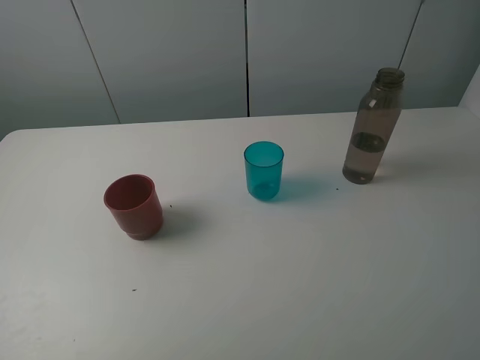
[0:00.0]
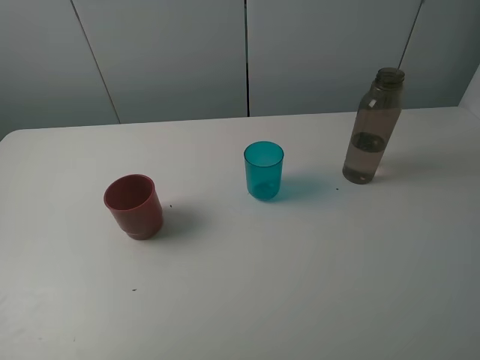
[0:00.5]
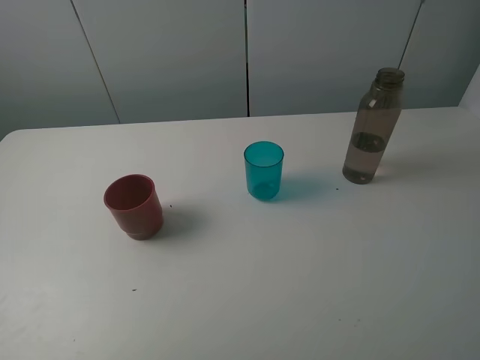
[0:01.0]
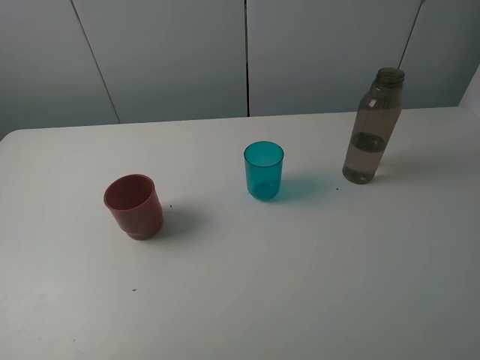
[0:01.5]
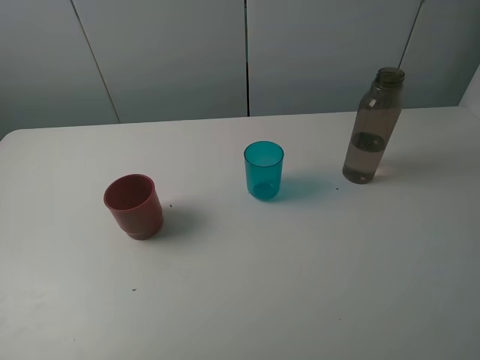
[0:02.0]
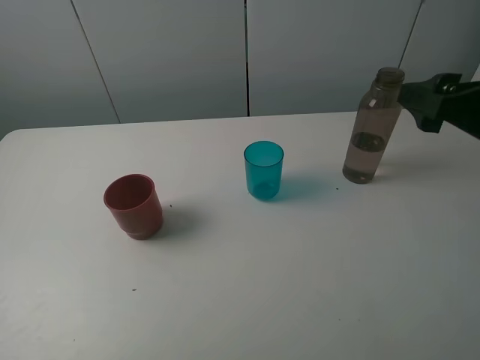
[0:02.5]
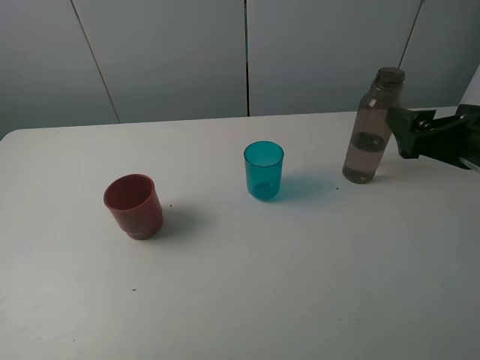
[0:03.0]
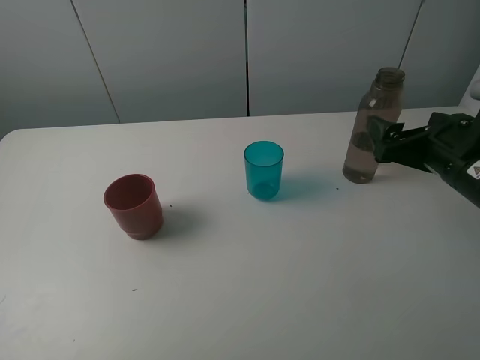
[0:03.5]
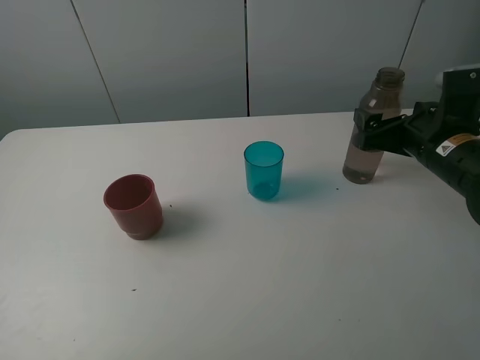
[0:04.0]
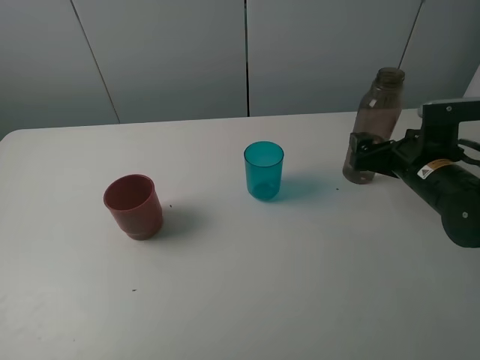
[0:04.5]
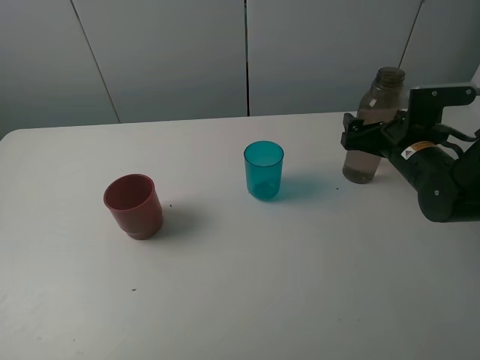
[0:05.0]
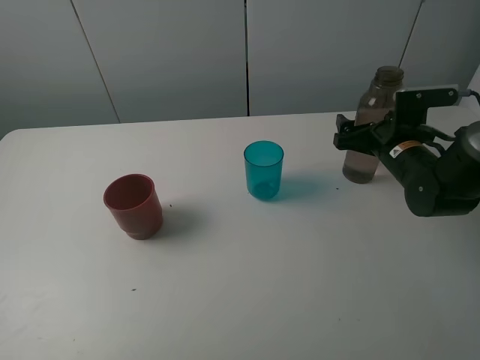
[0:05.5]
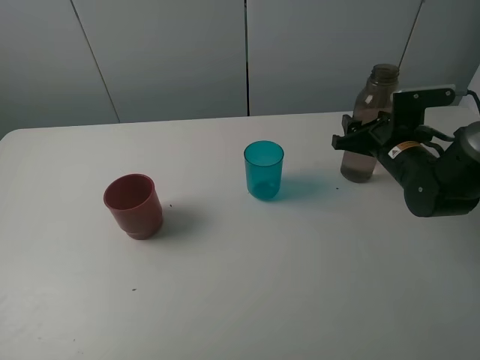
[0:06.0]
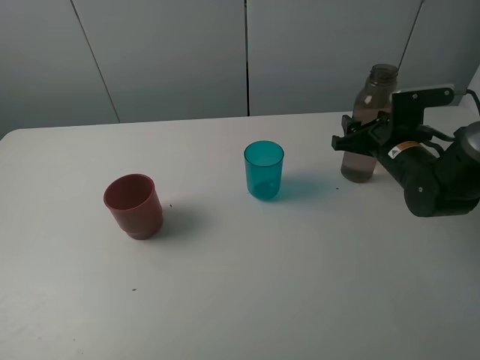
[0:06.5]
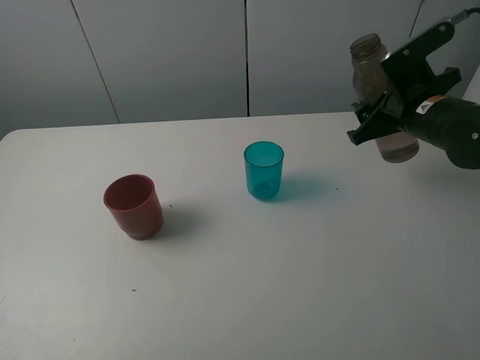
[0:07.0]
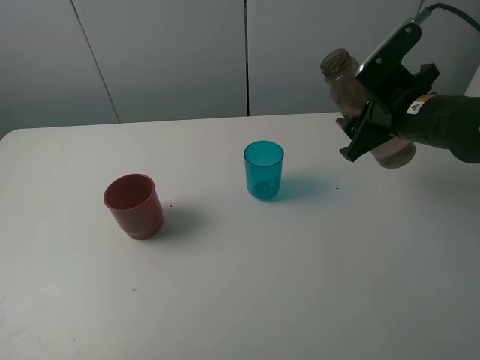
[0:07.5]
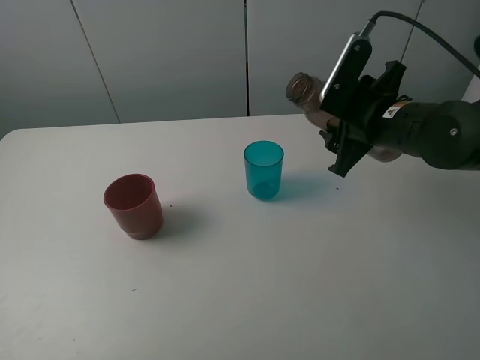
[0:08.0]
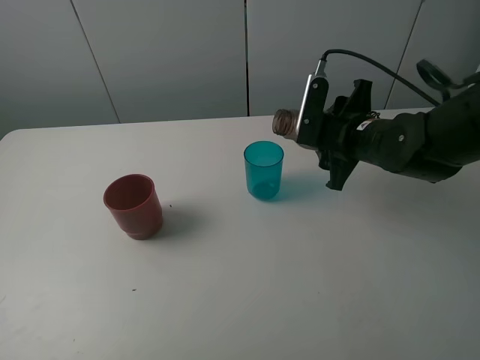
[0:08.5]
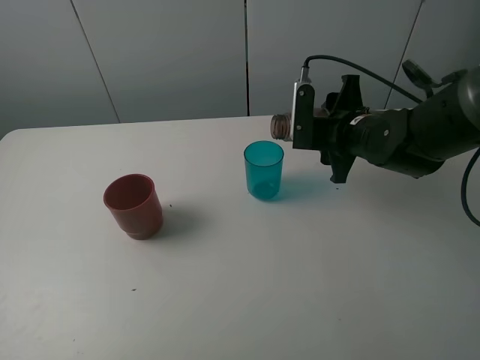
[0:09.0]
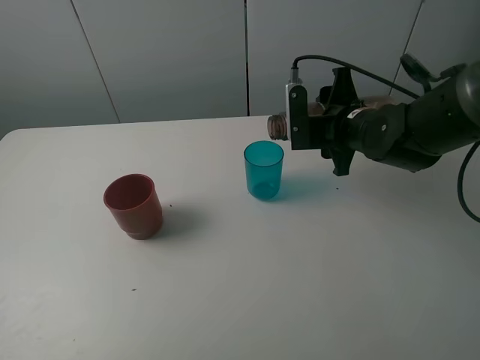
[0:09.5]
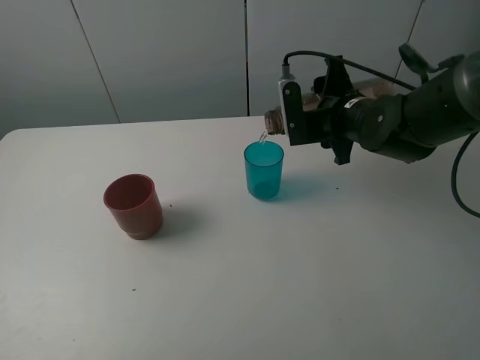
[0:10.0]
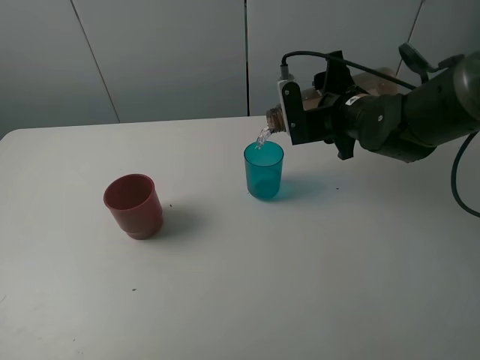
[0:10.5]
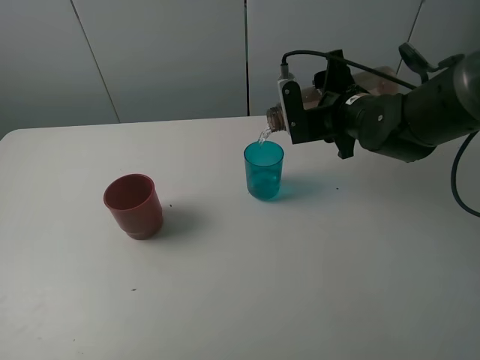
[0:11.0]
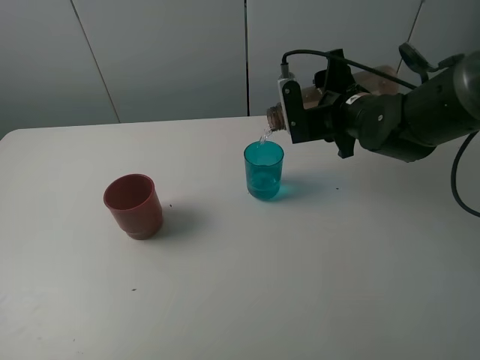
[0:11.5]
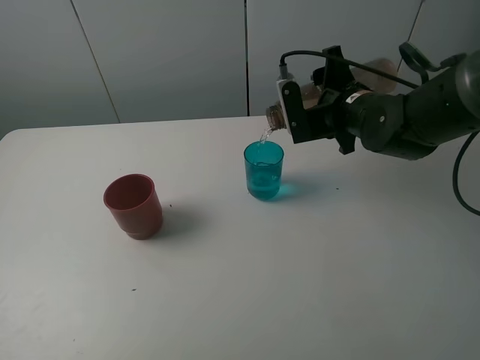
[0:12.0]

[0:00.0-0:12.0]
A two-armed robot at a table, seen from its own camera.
Task of the whole recording: pick up the bottle and pour water into the cup, then pick up the cup containing water and pour it into another cup.
Step, 0:00.0 to 0:06.0: Grasp the brown bottle with the right gripper.
0:02.0 to 0:04.0: The right gripper moves downward and forward, about 25 cm.
0:04.0 to 0:06.0: The right gripper is displaced forward and downward by roughly 10 cm, and closes.
0:06.0 to 0:08.0: The right gripper goes roughly 10 cm upward and to the left.
0:08.0 to 0:10.0: The right gripper shifts approximately 5 cm forward.
0:10.0 to 0:12.0: The grippers make only small movements.

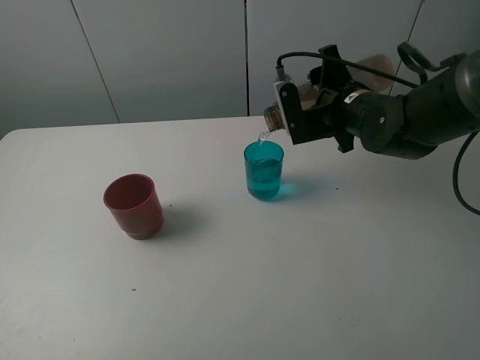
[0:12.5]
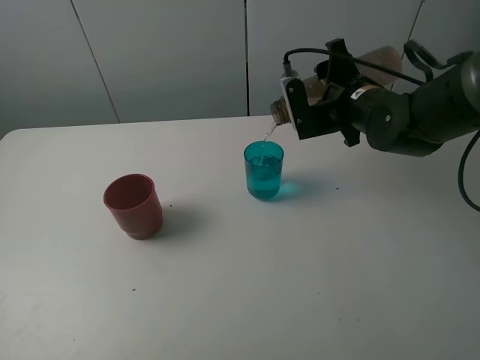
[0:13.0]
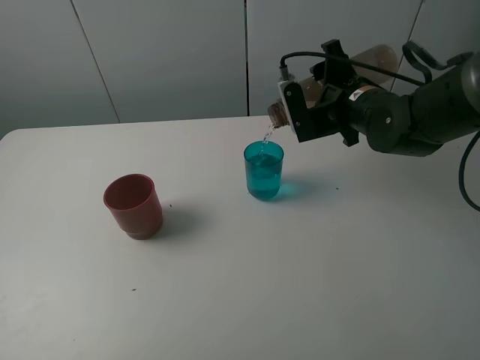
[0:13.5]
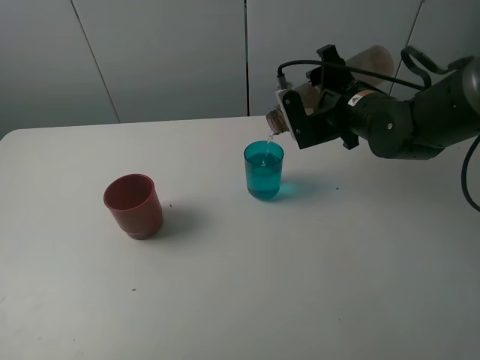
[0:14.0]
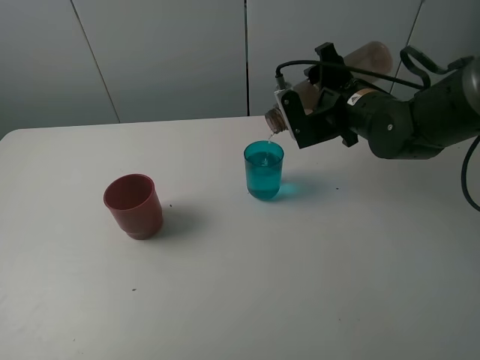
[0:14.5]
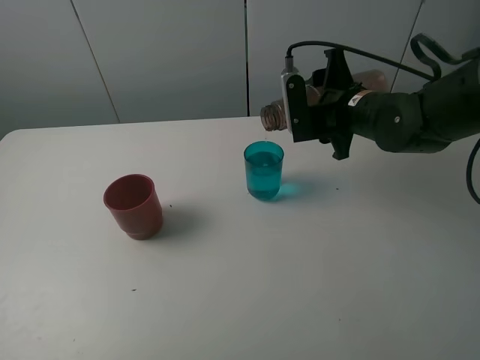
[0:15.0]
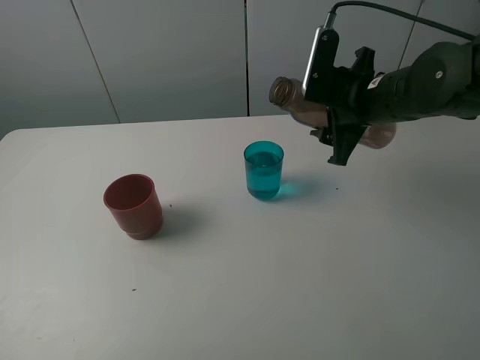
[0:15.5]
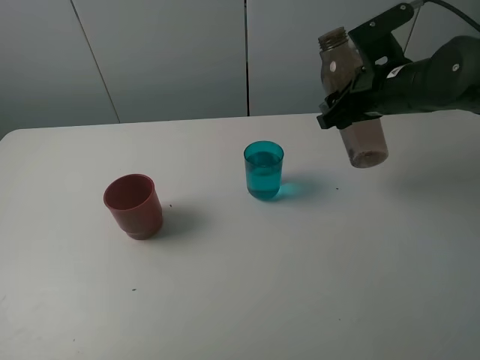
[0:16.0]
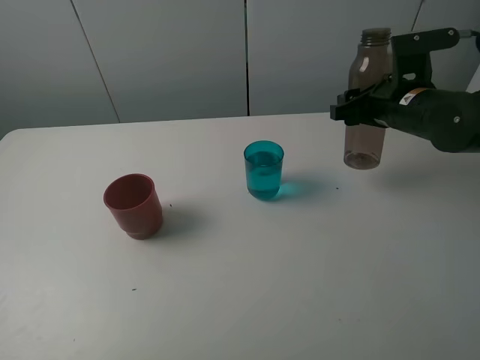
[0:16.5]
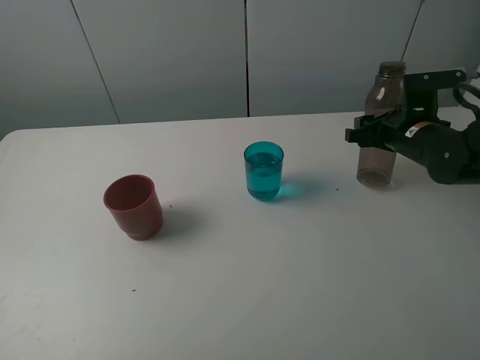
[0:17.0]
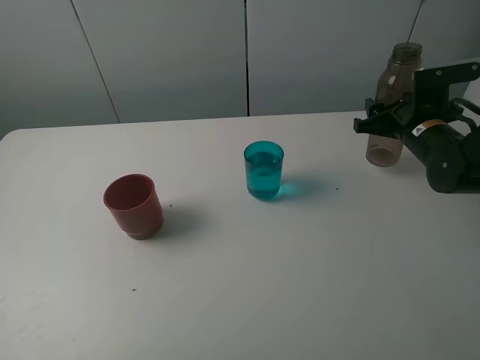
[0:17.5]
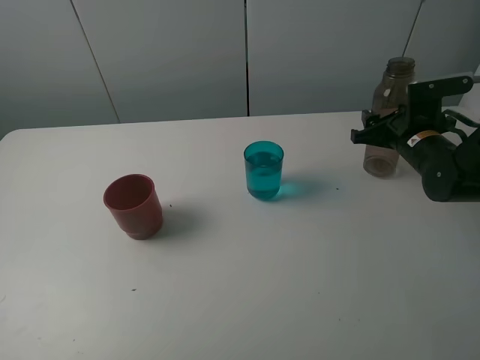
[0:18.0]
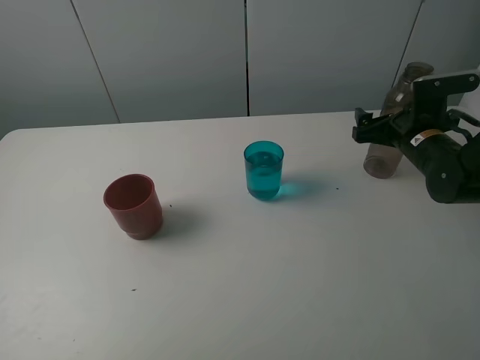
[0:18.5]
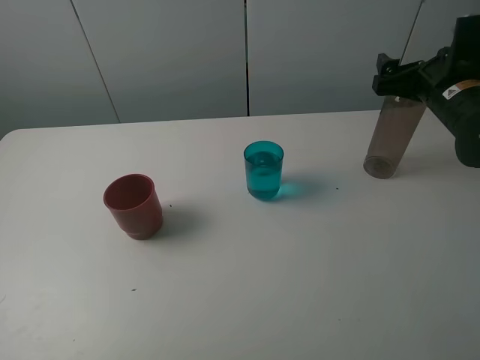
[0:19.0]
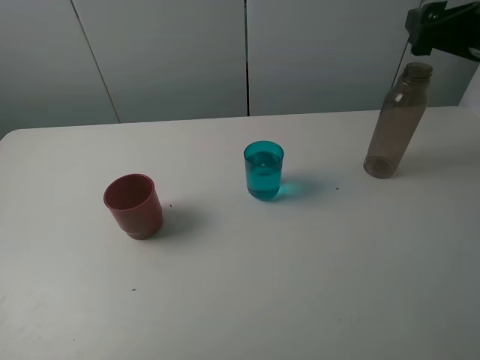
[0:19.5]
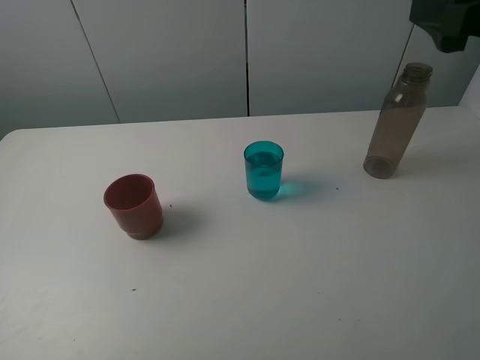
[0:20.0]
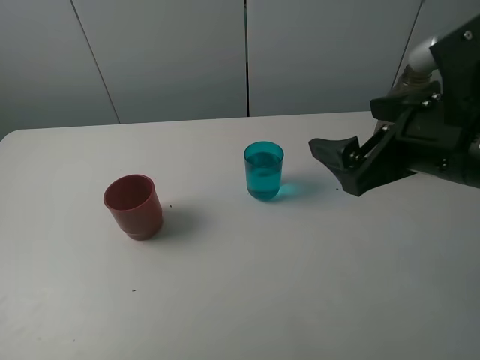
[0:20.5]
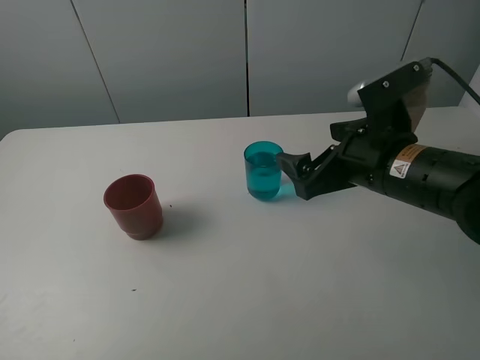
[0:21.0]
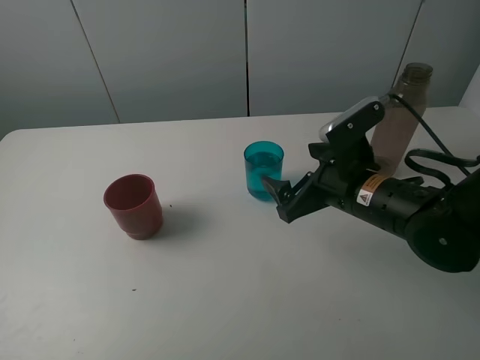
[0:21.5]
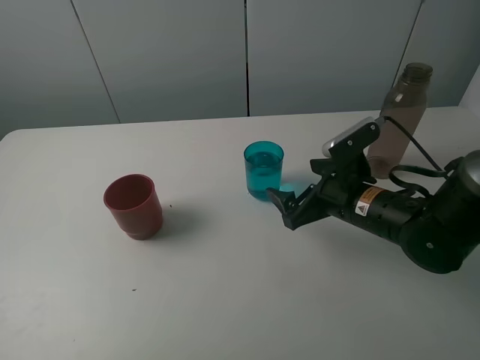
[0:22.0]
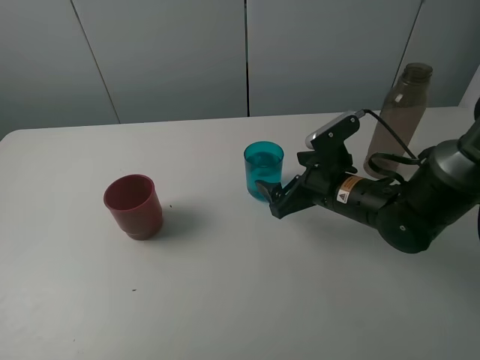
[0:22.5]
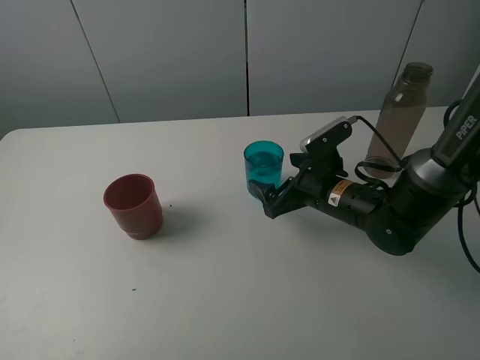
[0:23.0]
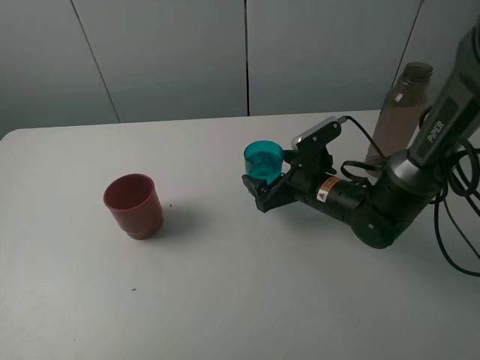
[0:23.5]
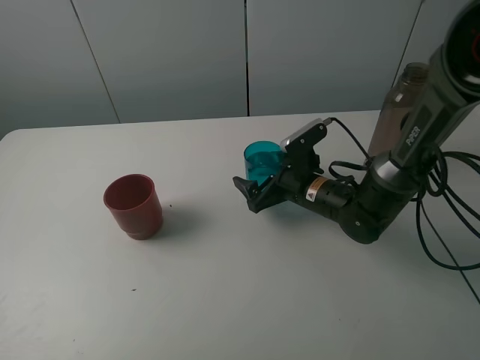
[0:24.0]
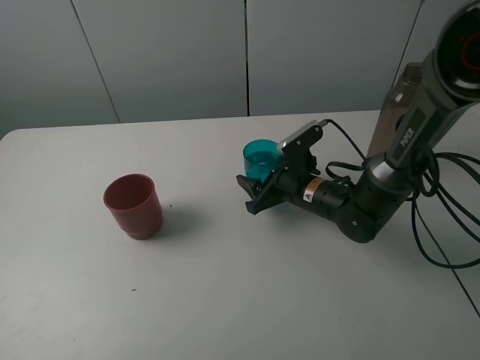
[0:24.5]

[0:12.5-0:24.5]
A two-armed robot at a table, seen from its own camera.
Task of the whole recording: pick up the bottle and pour water into the cup, then pick up the cup containing water and pour it into another cup.
Step, 0:12.5 to 0:15.0: Pour water from brown bottle to blue cup with the right gripper.
Step, 0:15.5 to 0:18.5: Place the brown bottle with the right gripper.
0:12.5 to 0:14.5: There are only small adjustments of the grippers.
0:14.5 to 0:16.5: The right gripper travels to the right by approximately 5 cm.
0:16.5 to 0:18.5: The right gripper shifts roughly 5 cm downward, and opens its fingers.
0:18.5 to 0:20.5: The right gripper is displaced backward, upward and to the left by roughly 20 cm.
0:20.5 to 0:22.5: The right gripper is displaced downward and forward by some 20 cm.
0:22.5 to 0:24.5: The right gripper shifts by roughly 5 cm, and closes up.

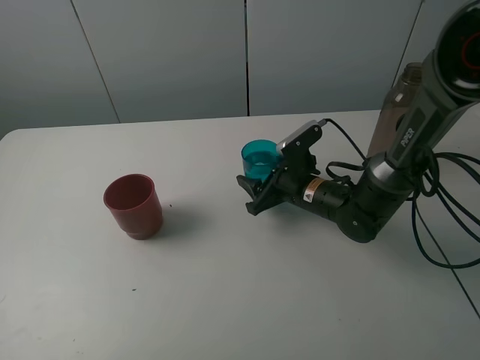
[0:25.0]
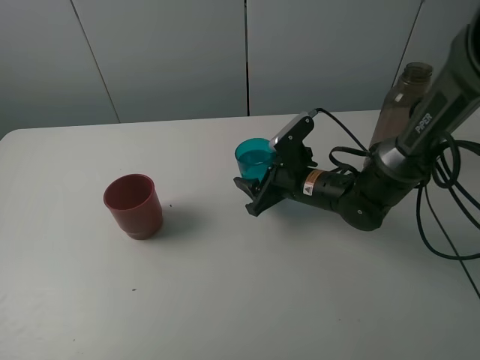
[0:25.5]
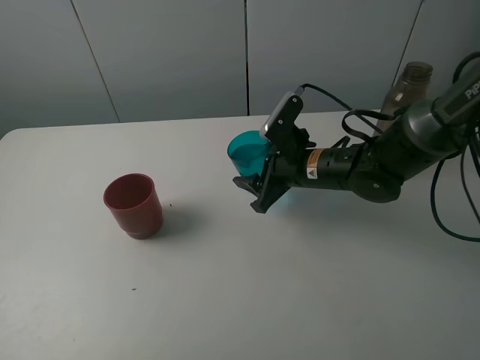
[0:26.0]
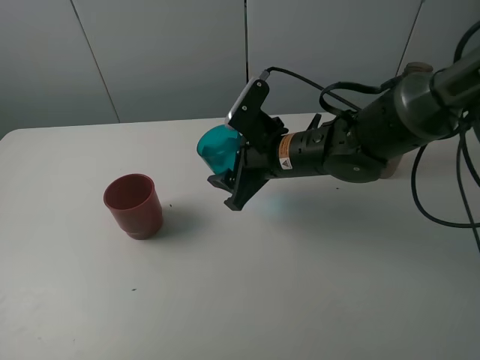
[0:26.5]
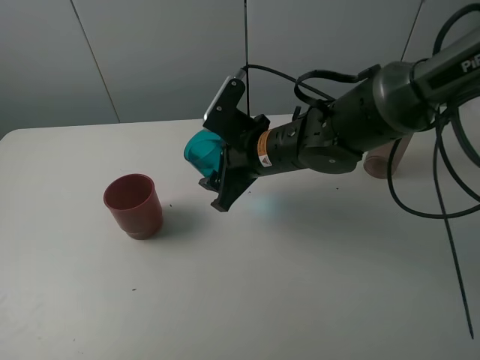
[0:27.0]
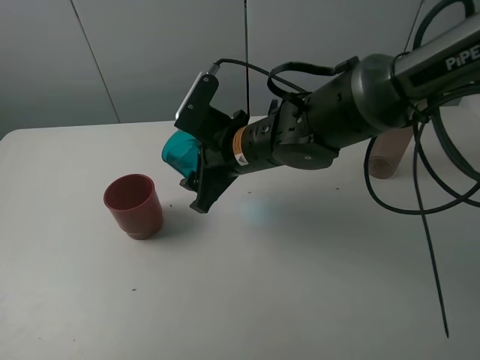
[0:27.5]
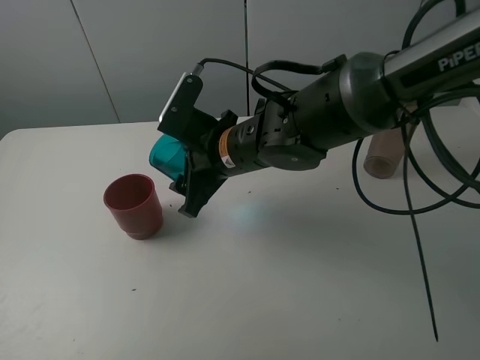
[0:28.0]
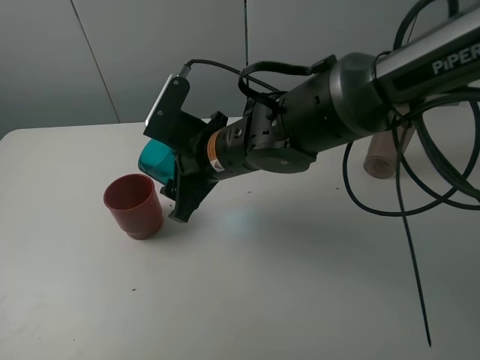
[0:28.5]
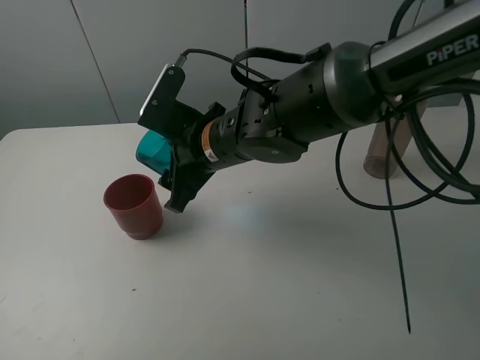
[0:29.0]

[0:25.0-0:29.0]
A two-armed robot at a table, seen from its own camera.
Task of the whole recording: pick up the bottle and pour water into the cup, then pick up the cup containing water and pour it into another cup.
0:25.0 to 0:27.0: The right gripper shifts roughly 15 cm upward and to the left.
0:27.0 to 0:29.0: The right gripper heads to the left, covering about 5 cm.
